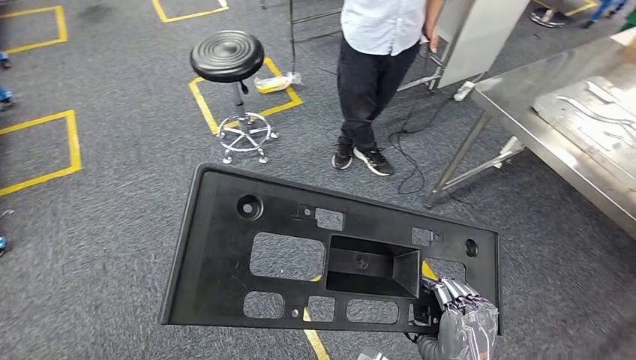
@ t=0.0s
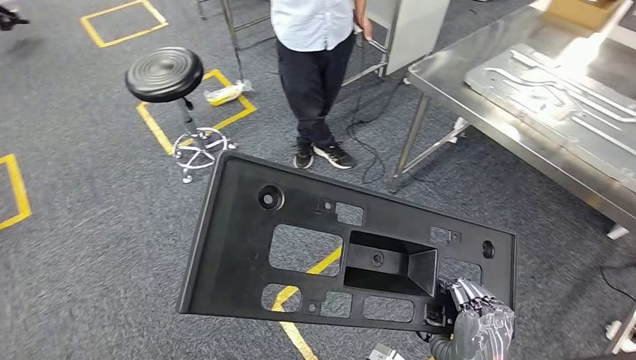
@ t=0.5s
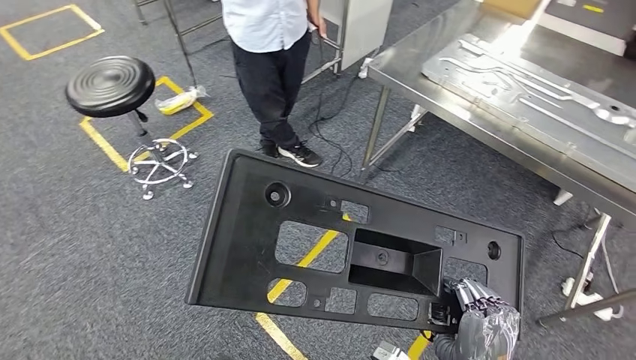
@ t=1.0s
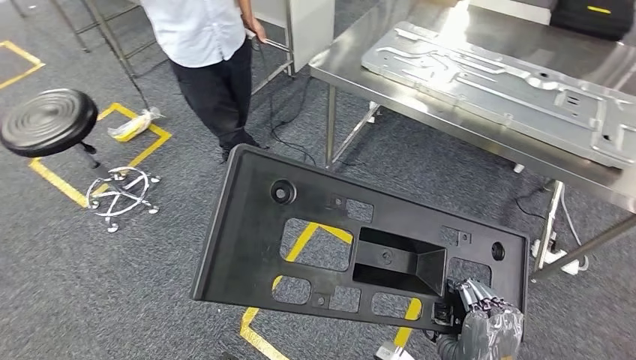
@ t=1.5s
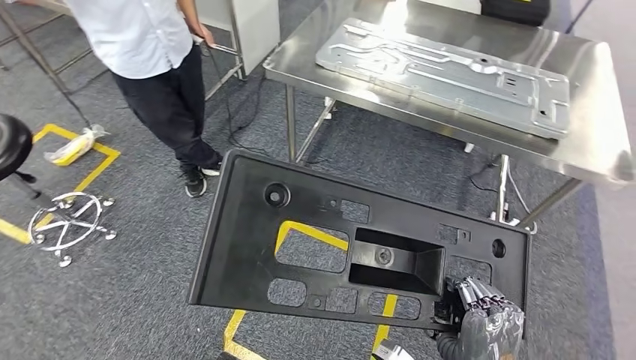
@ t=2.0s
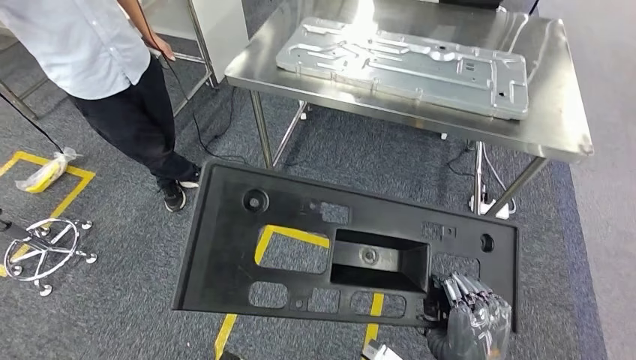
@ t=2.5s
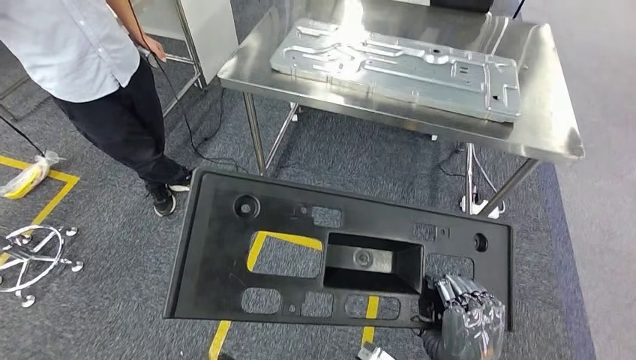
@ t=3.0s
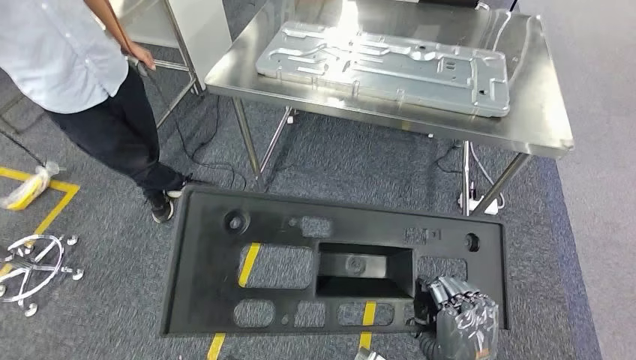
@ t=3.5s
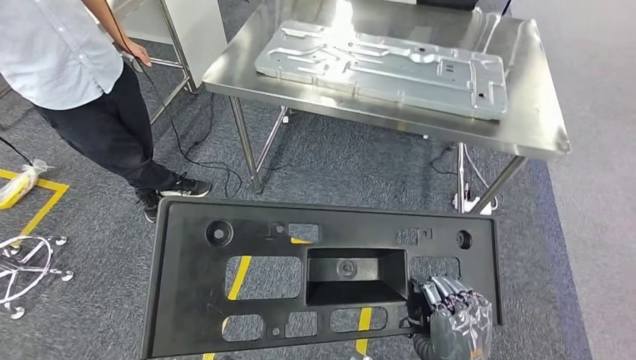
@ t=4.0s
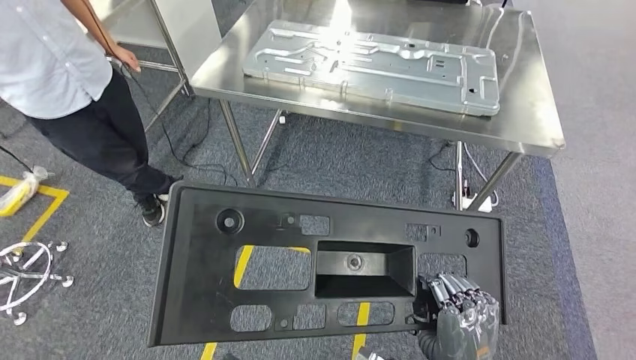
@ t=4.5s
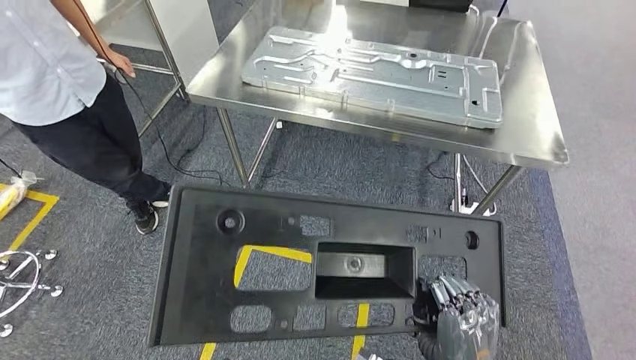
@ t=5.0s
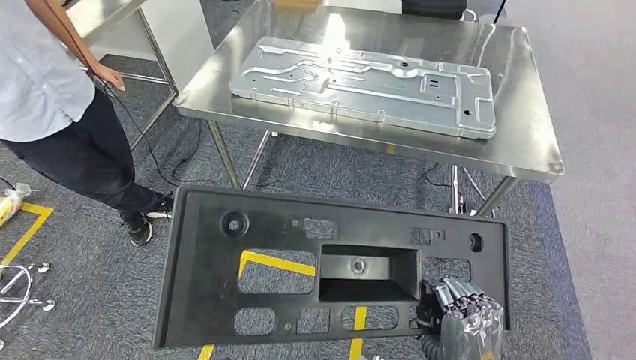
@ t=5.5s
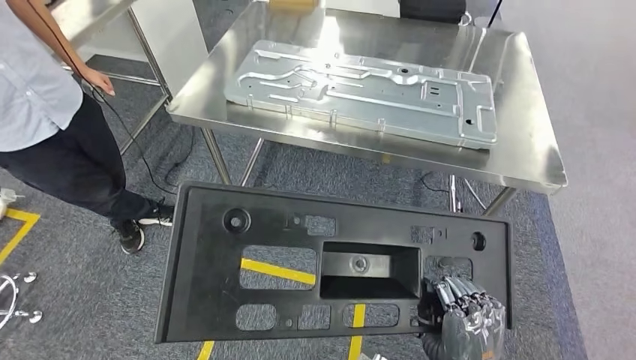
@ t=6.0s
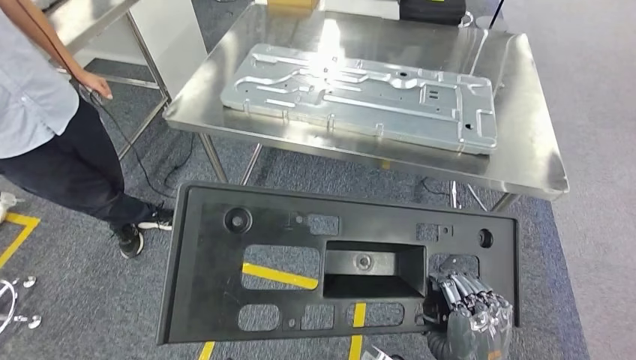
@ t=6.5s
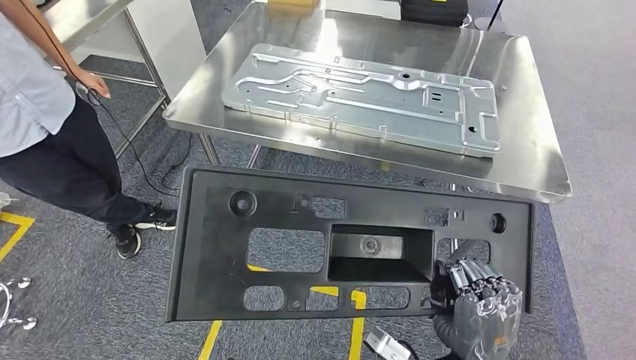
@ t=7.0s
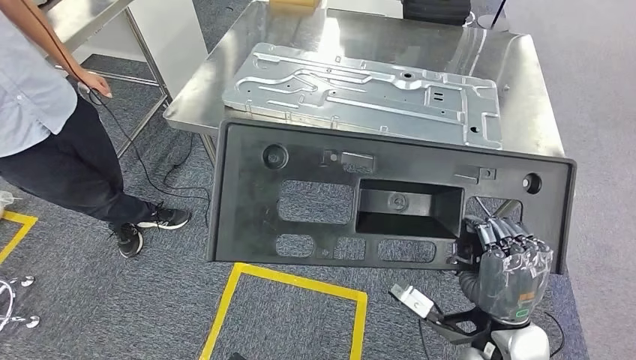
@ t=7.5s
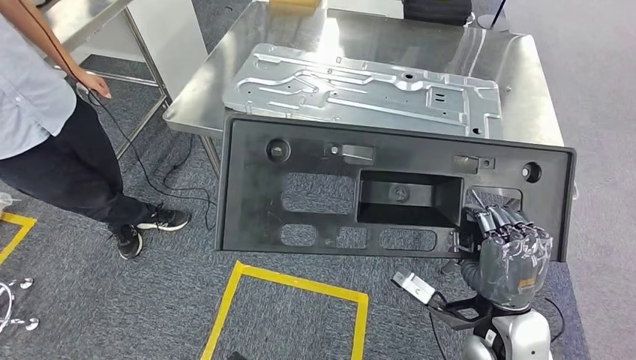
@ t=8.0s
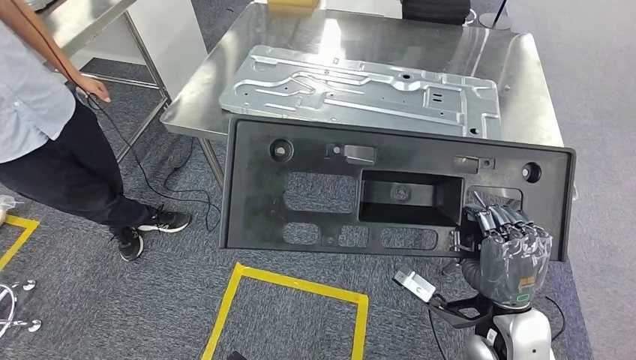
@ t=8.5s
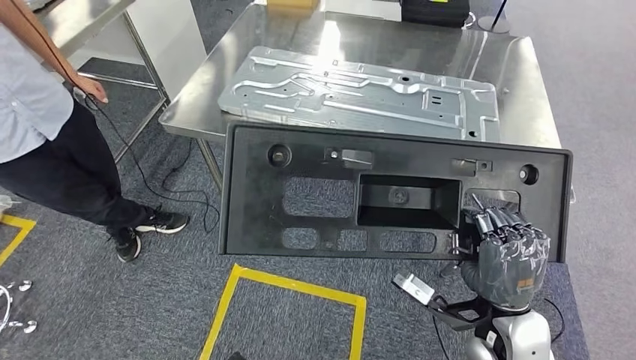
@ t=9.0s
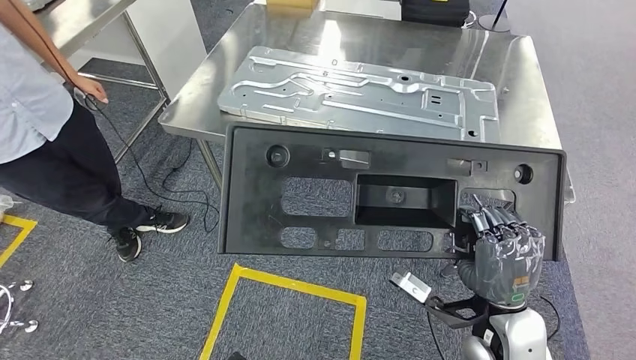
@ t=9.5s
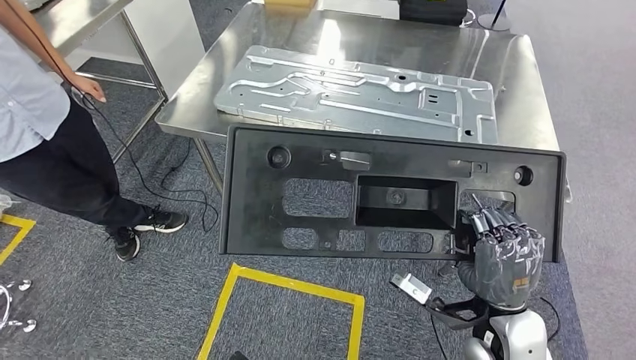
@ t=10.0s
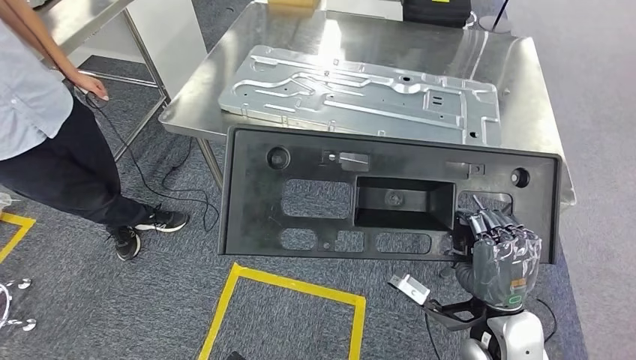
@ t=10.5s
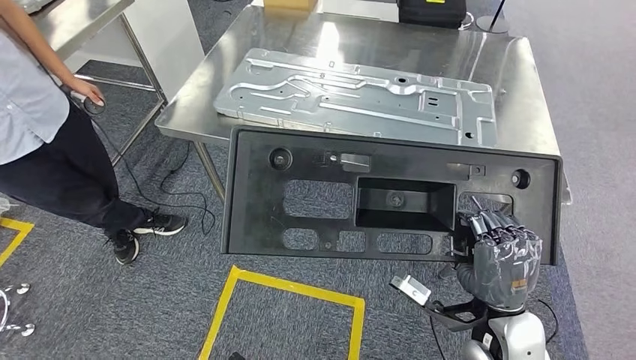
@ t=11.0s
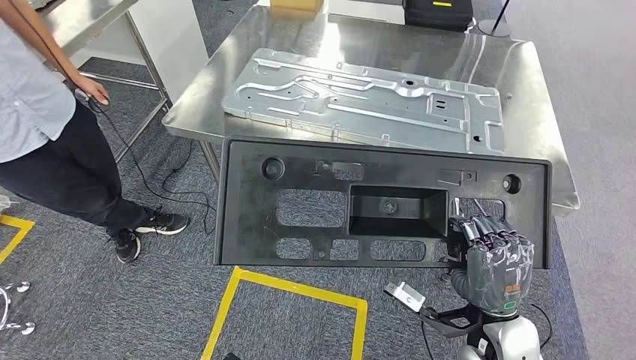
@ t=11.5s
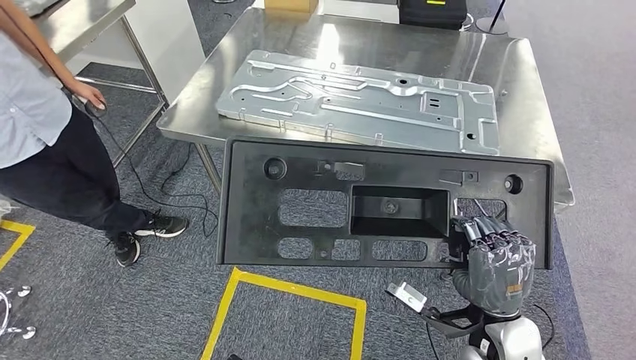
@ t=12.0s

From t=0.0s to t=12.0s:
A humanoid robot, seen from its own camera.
From t=8.0s to t=10.0s: Both hands stay about where they are.

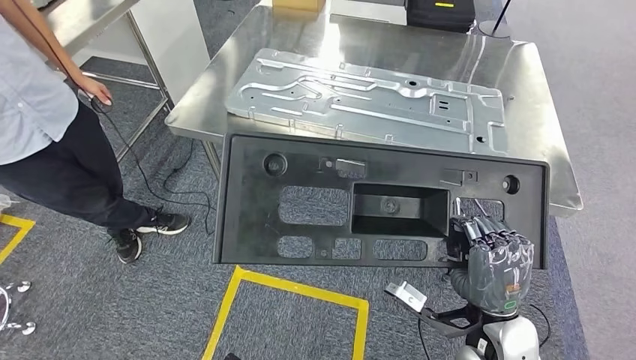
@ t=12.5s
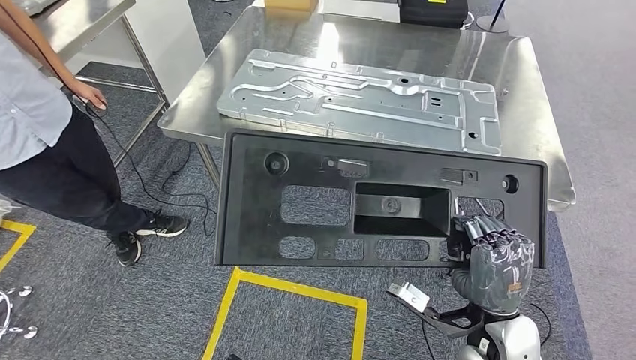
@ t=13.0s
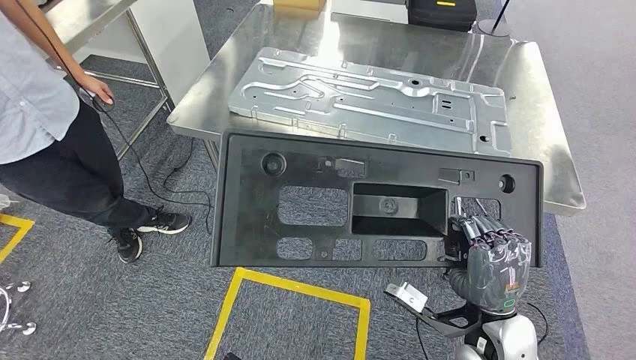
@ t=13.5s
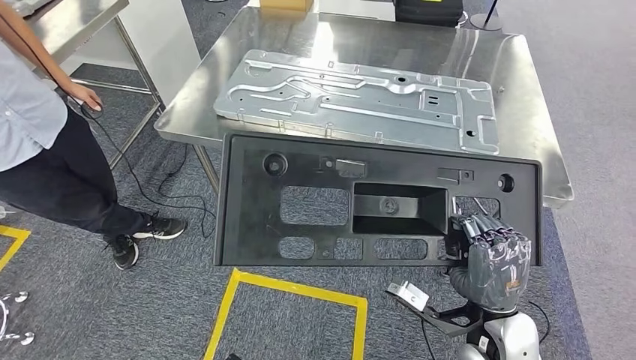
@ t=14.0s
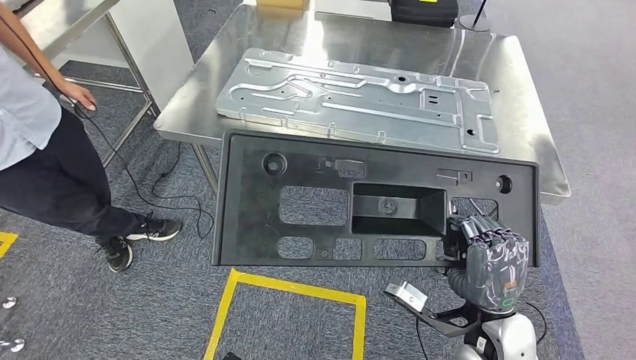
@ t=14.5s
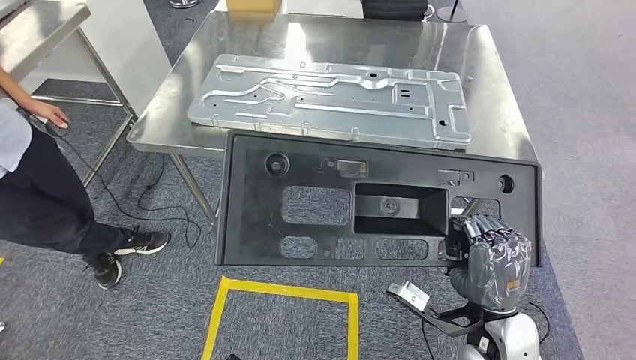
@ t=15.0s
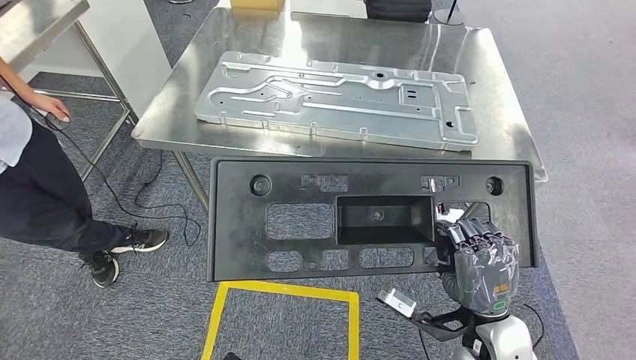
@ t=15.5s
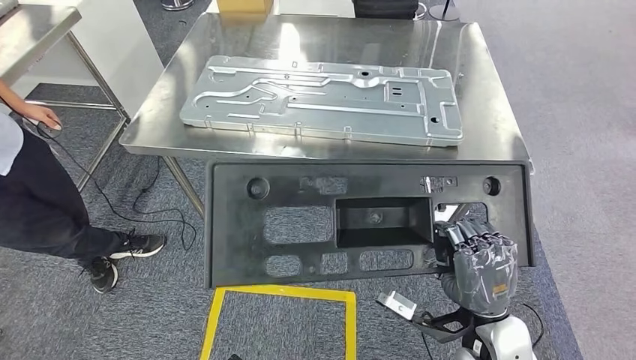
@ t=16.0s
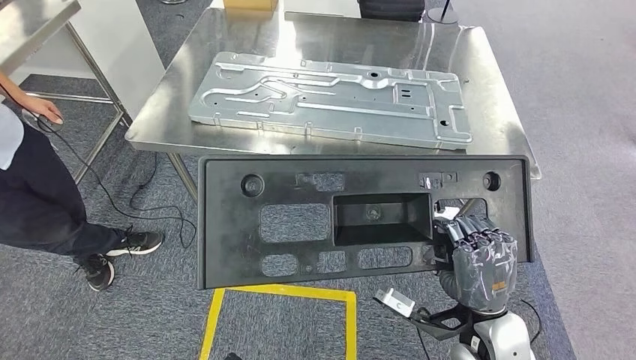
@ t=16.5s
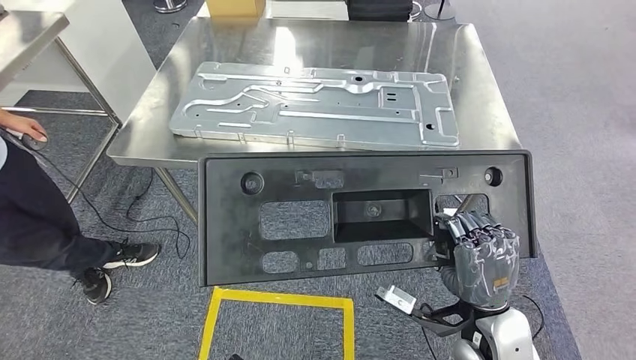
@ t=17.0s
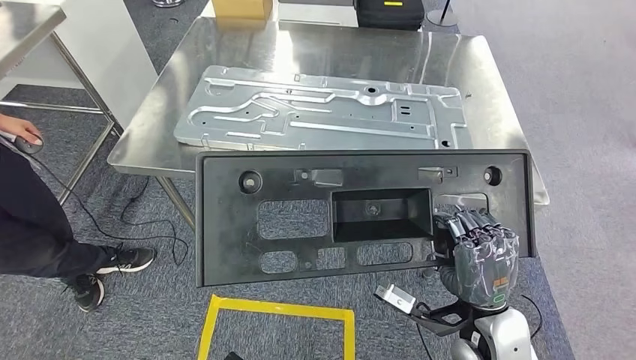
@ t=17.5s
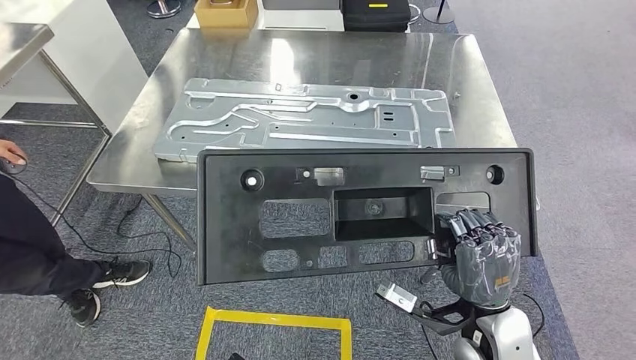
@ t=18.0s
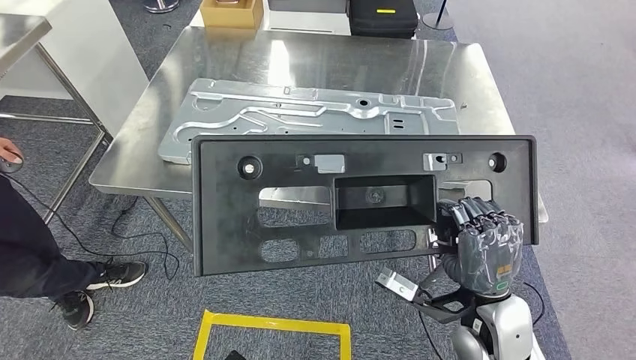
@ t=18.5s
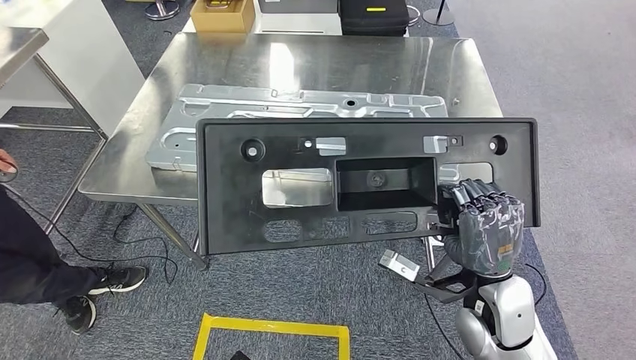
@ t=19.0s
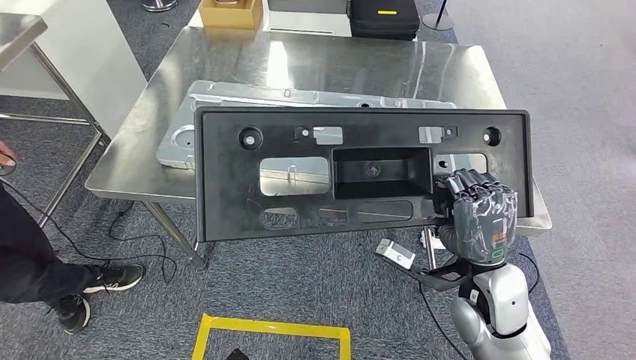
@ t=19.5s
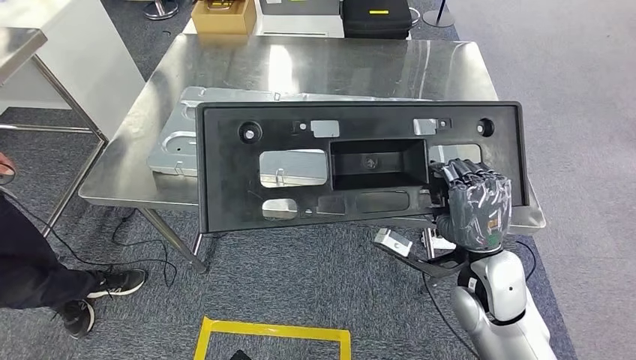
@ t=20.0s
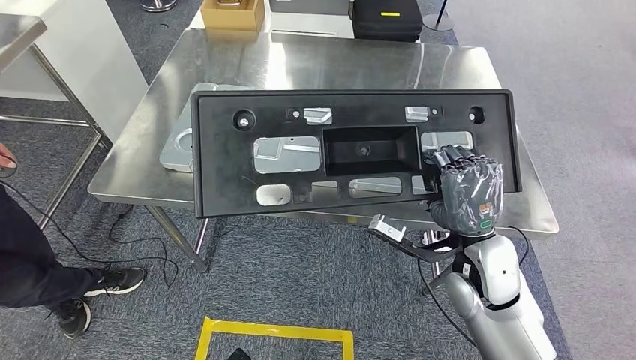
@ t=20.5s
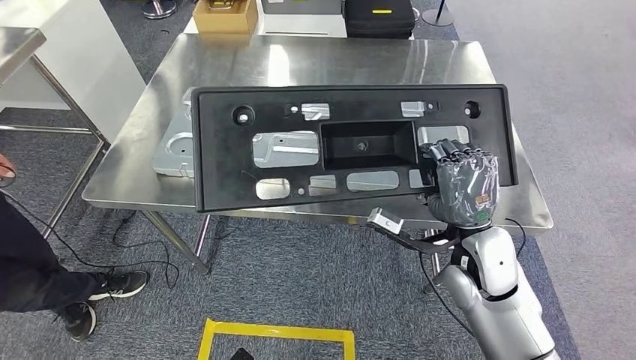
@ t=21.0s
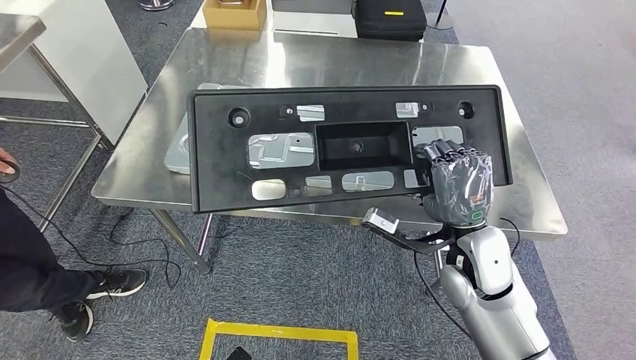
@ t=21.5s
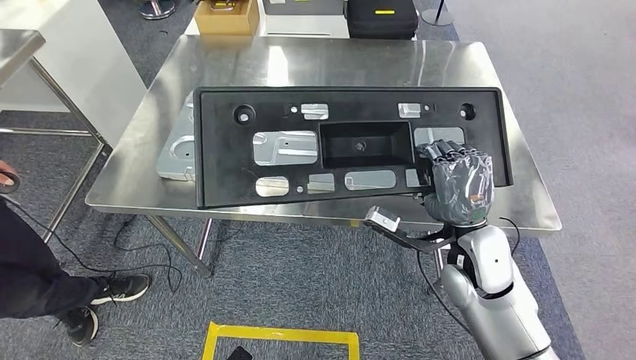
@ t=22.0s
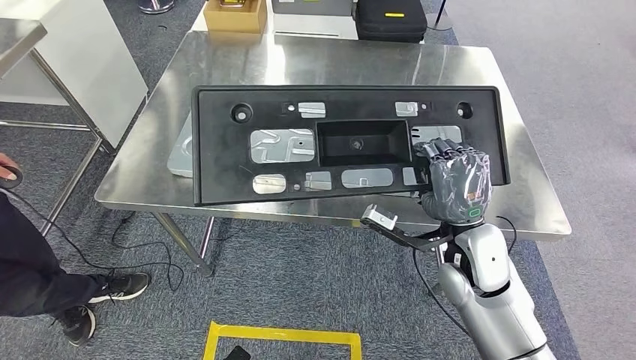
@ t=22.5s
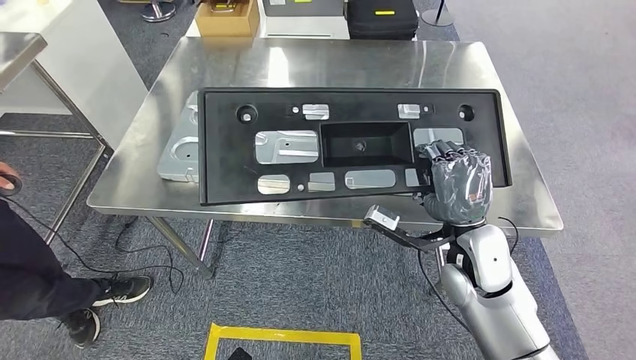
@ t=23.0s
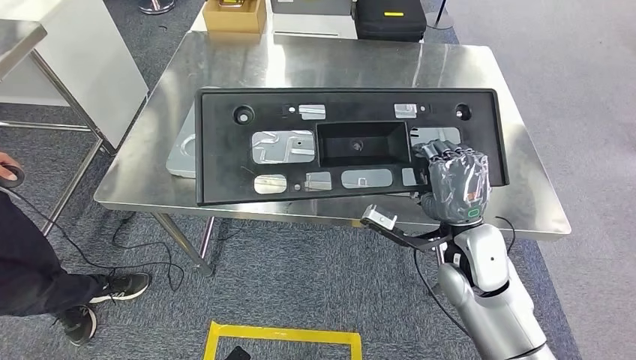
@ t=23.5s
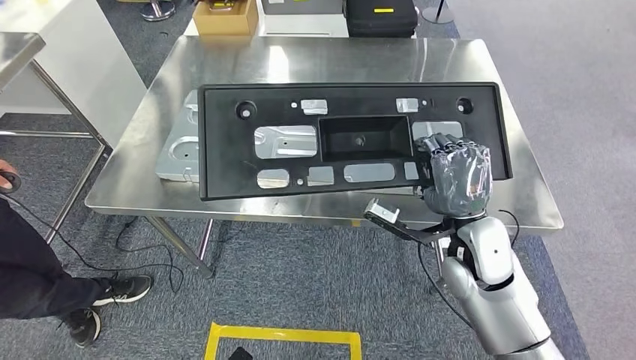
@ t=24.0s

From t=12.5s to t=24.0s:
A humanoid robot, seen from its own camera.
From t=22.0s to t=24.0s: Neither hand changes place.
